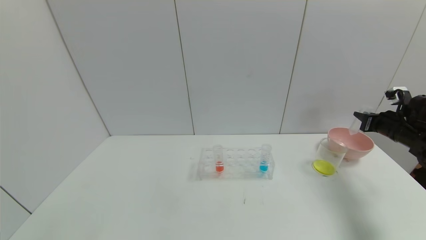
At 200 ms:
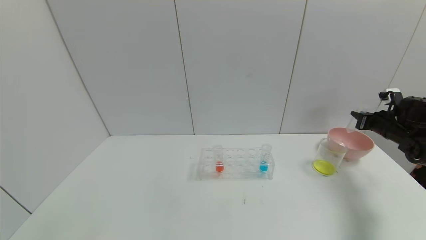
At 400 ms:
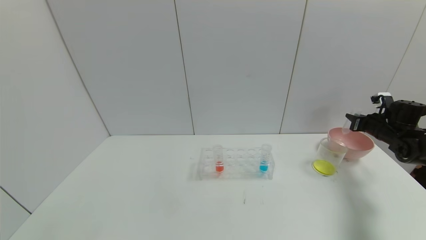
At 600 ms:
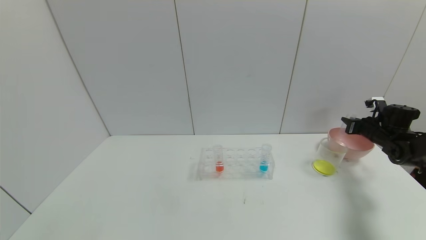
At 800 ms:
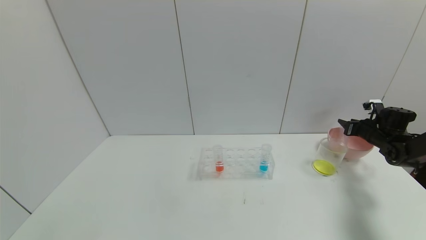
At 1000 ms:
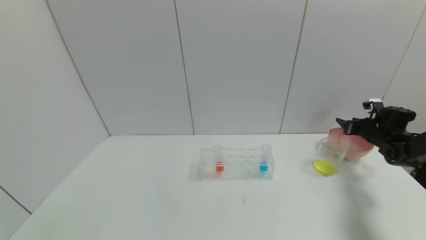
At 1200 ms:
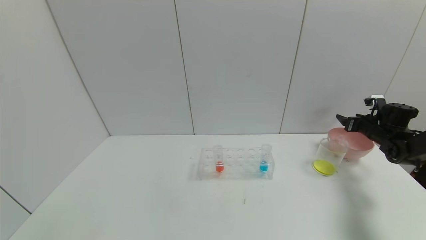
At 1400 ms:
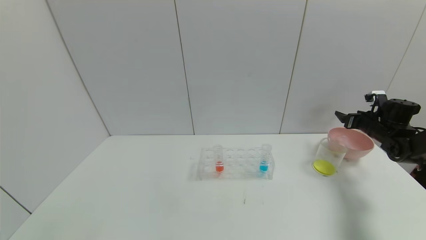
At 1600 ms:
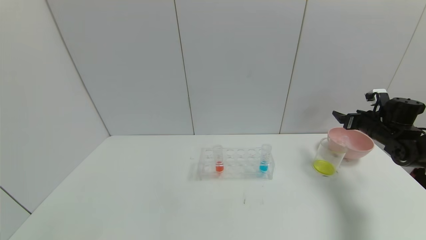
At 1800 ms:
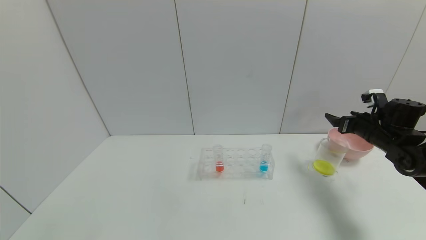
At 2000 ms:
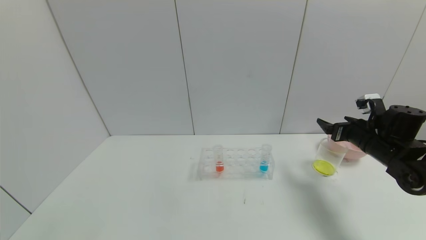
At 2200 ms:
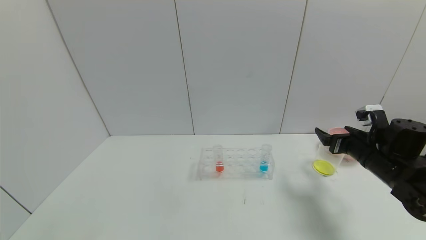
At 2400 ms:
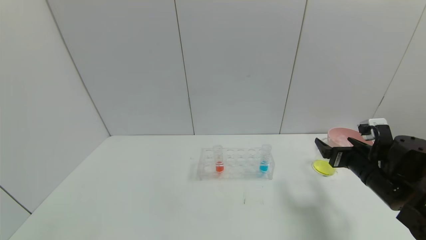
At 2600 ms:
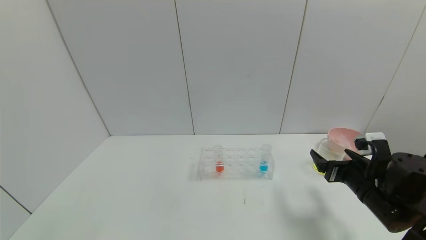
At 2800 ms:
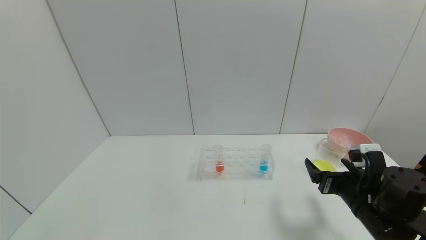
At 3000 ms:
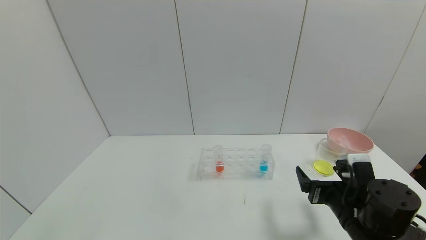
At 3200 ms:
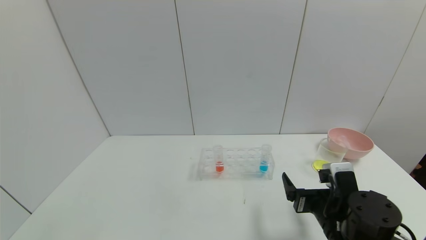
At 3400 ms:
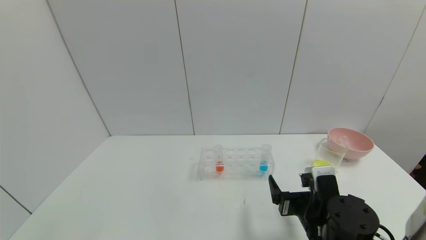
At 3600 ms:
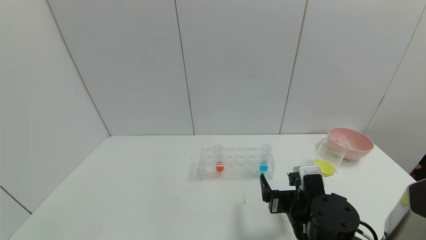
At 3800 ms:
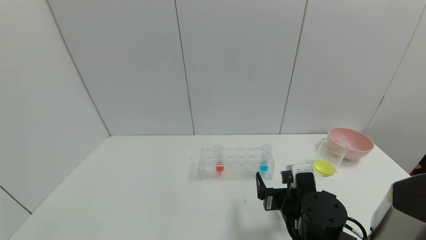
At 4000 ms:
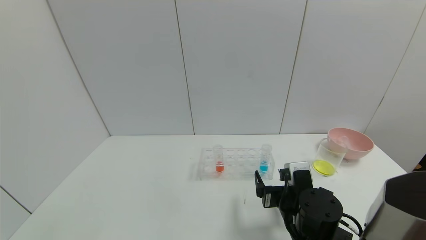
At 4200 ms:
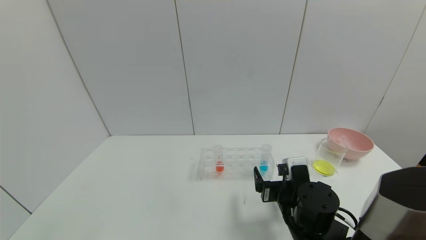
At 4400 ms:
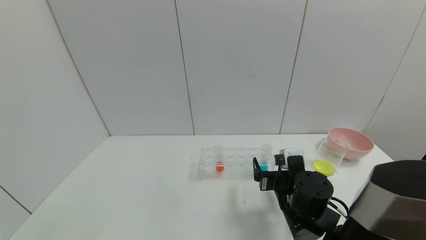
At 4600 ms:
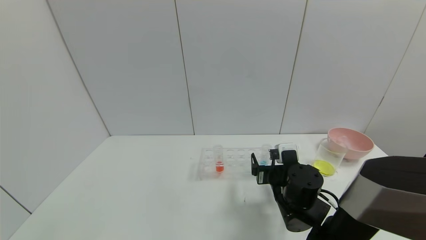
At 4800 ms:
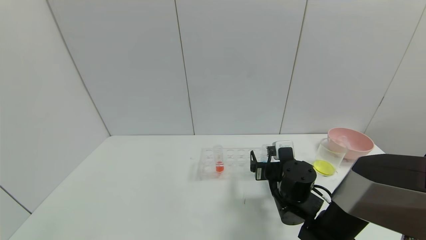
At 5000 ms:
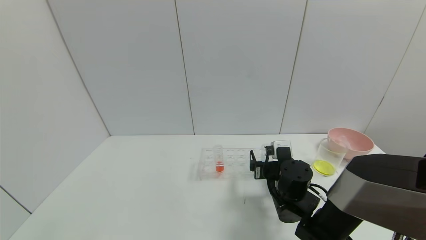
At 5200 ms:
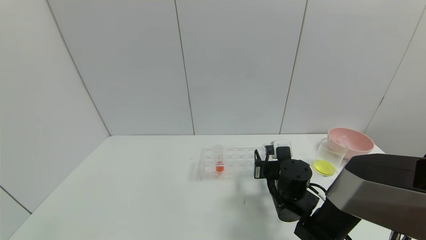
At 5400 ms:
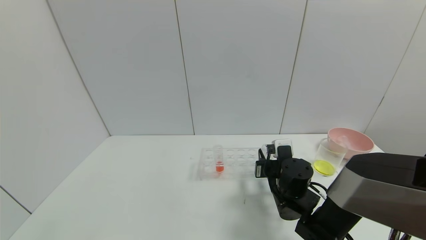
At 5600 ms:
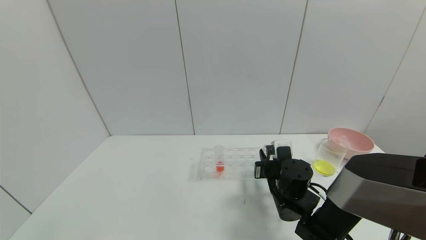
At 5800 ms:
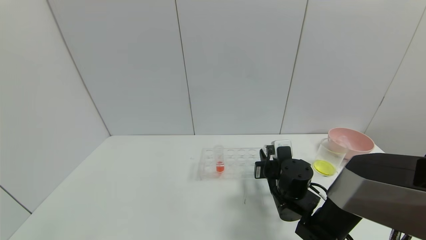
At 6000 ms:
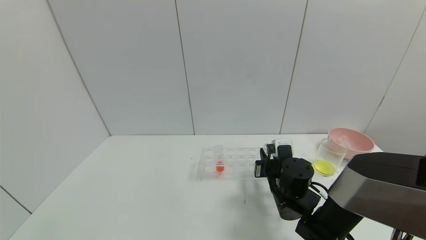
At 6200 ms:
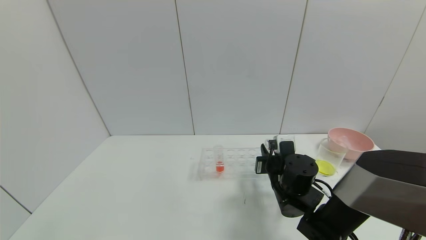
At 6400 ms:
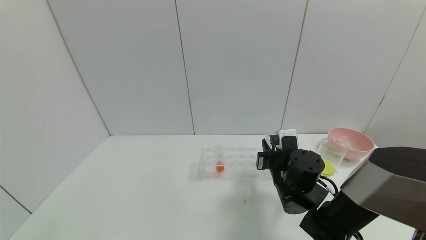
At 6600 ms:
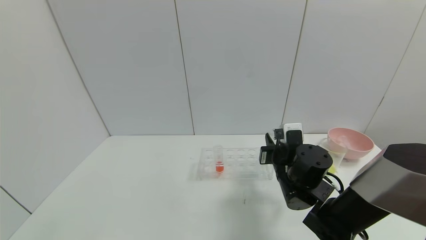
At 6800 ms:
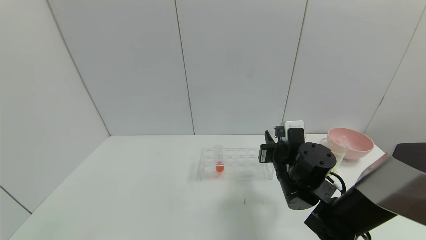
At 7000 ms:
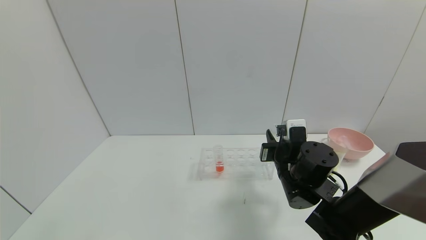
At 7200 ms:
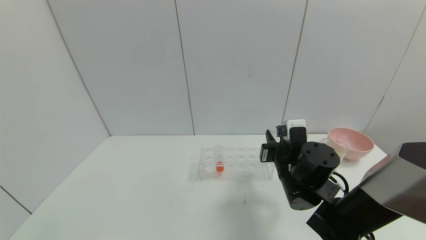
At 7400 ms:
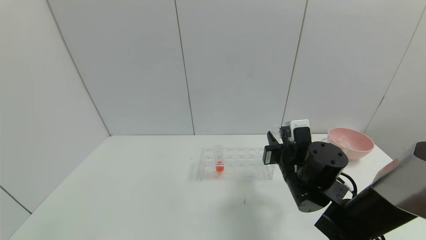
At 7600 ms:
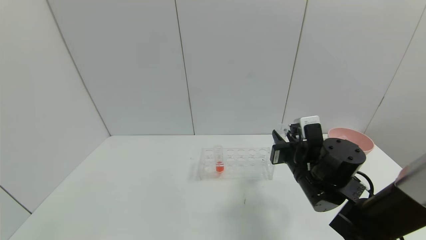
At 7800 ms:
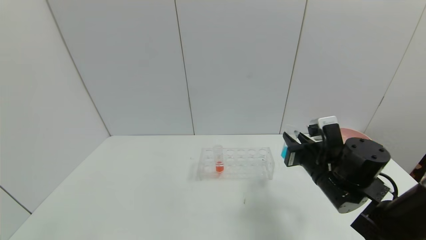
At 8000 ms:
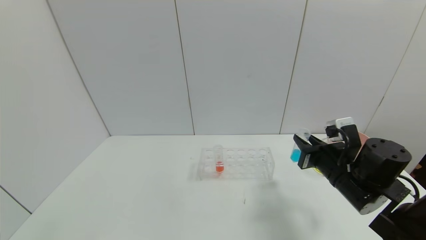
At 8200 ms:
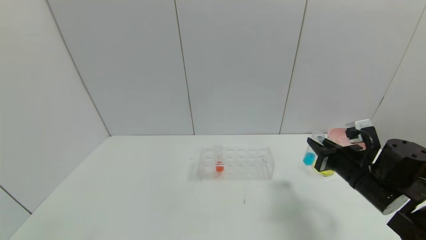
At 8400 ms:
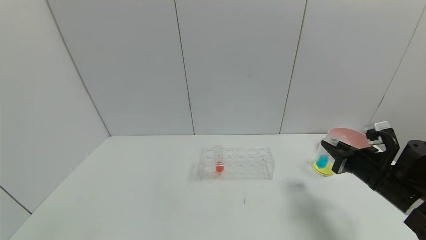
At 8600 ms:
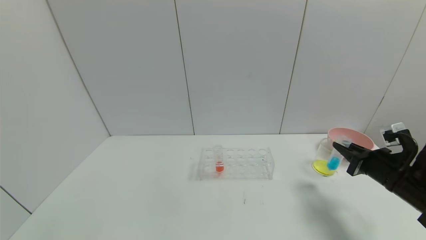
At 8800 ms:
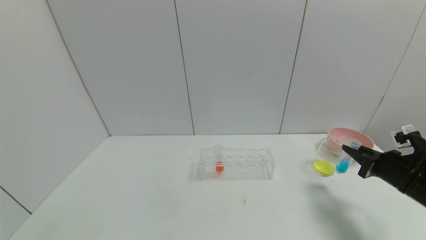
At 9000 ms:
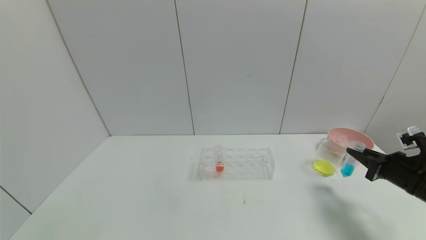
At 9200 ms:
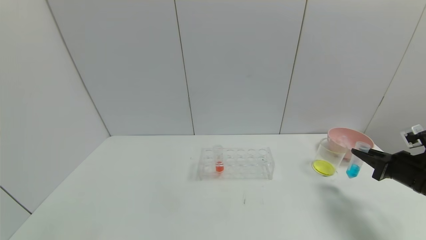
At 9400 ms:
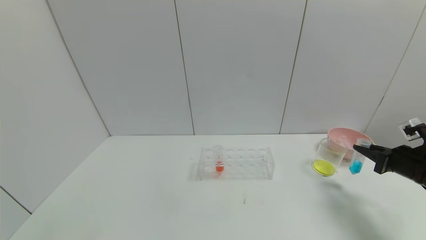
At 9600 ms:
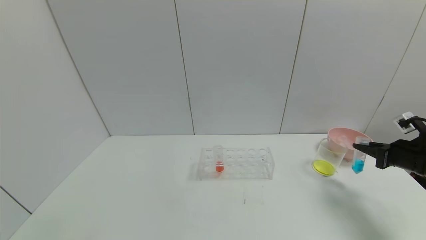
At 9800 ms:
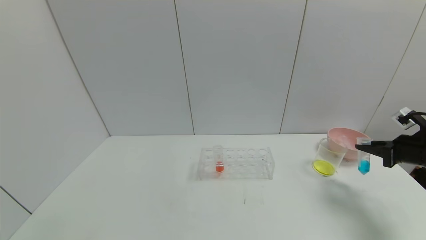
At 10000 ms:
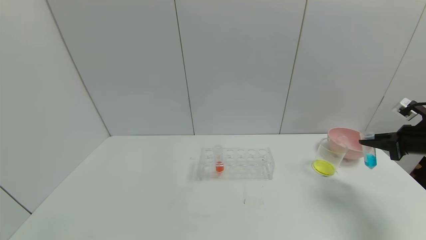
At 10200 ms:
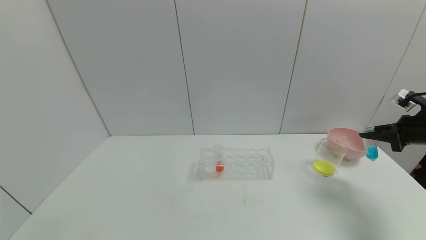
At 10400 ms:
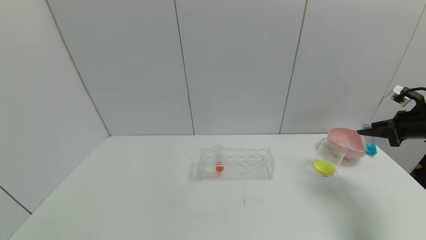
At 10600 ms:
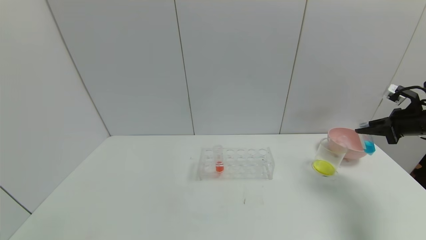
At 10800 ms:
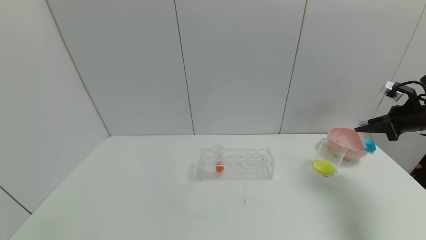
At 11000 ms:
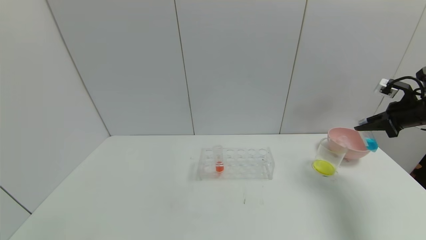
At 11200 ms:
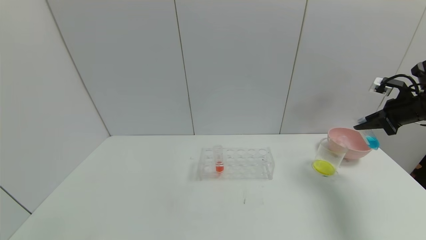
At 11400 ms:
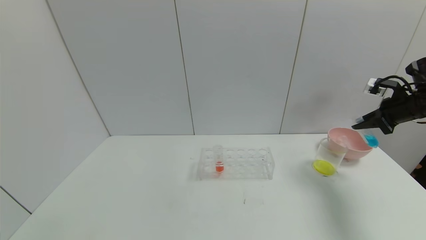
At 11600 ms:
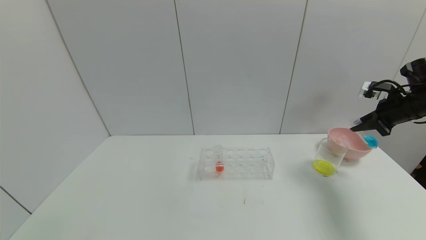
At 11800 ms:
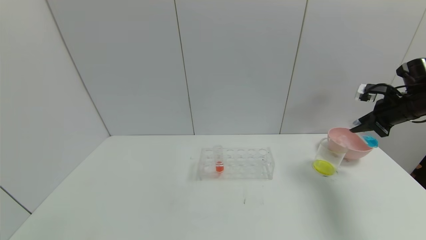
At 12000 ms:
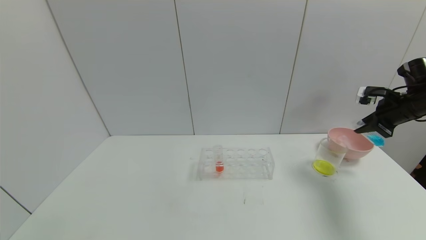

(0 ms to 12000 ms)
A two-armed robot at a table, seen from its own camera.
Task of the whole recording: pick up the test tube with yellow pigment and the test tube with blue pigment by grippers and pour them into the beaker.
Step, 1400 ms - 5600 ms: Grasp the blue reagent with the right gripper.
0 ms - 1600 ms: The right gripper opens up.
1600 ms - 3000 ms: The right gripper is displaced backward and to the left by roughly 30 cm.
3000 ms - 4400 ms: The right gripper is displaced to the left and forward by some 10 cm.
4400 ms - 6000 ms: The right gripper closes.
6000 ms - 7600 ms: The right gripper goes approximately 5 cm upward.
7600 ms - 9000 ms: The right gripper moves to the right, about 25 cm.
9000 ms - 10400 ms: The right gripper heads upward, forward and to the right, covering roughly 15 cm.
10400 ms - 12000 ms: The right gripper ends up roughly 5 cm from where it was.

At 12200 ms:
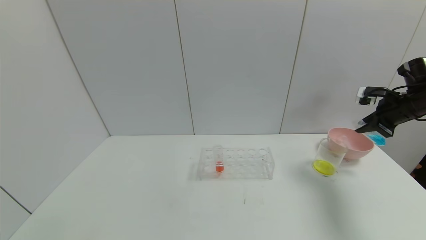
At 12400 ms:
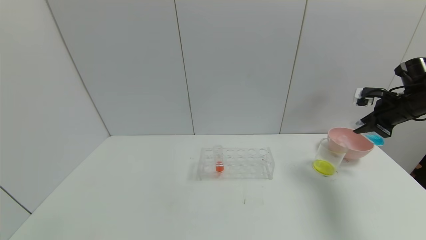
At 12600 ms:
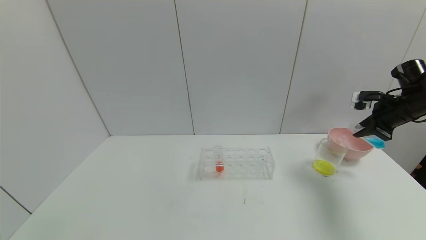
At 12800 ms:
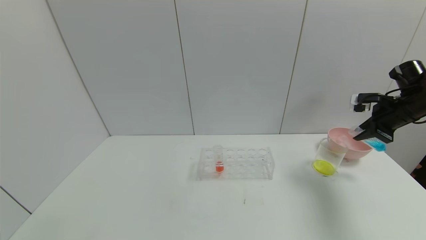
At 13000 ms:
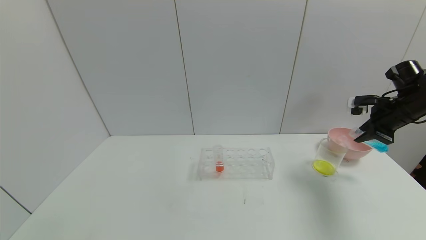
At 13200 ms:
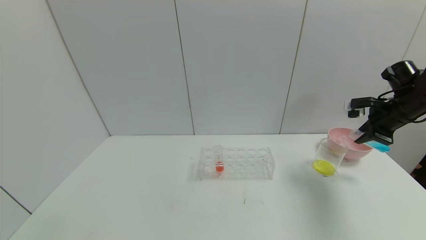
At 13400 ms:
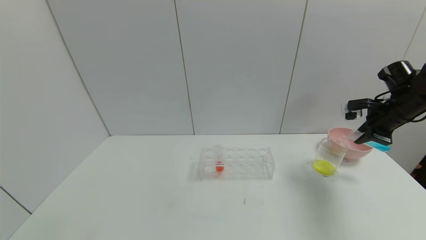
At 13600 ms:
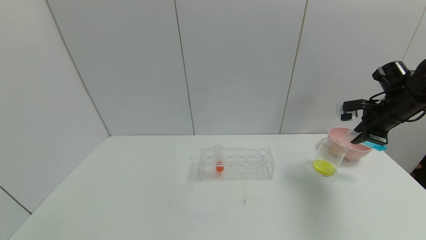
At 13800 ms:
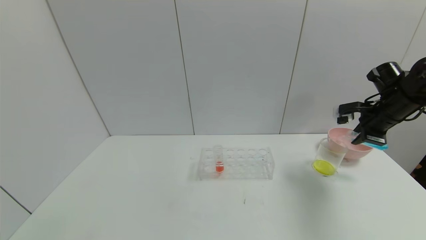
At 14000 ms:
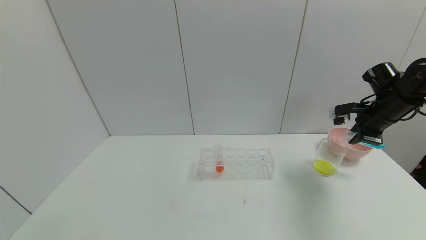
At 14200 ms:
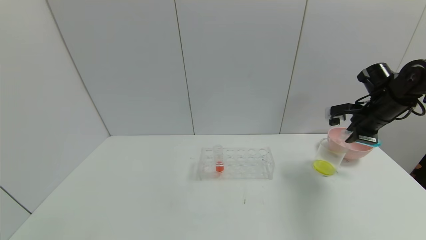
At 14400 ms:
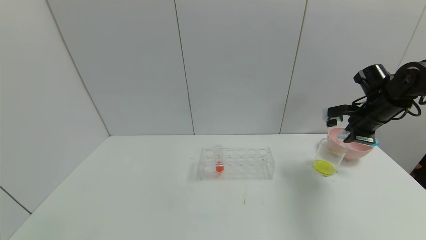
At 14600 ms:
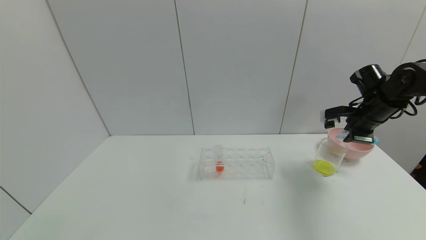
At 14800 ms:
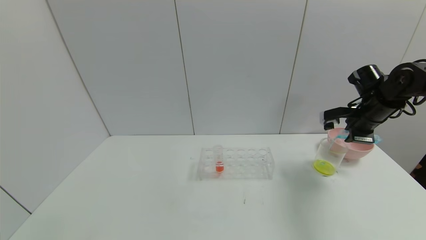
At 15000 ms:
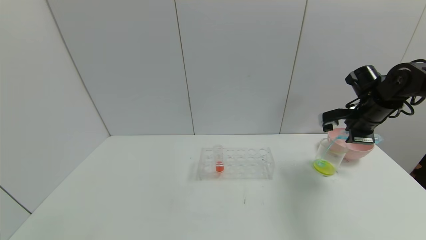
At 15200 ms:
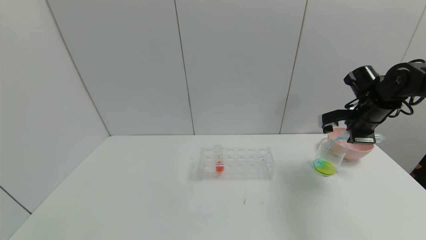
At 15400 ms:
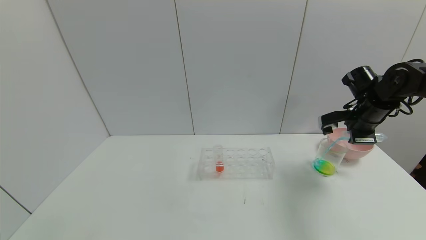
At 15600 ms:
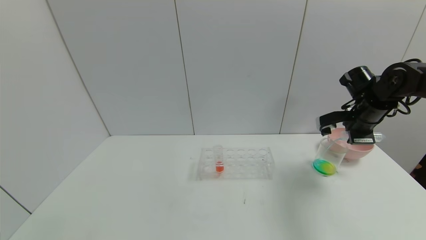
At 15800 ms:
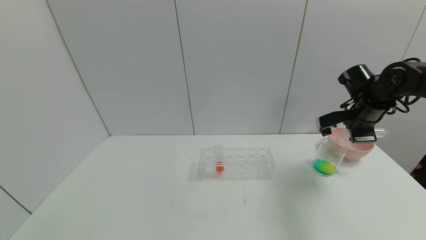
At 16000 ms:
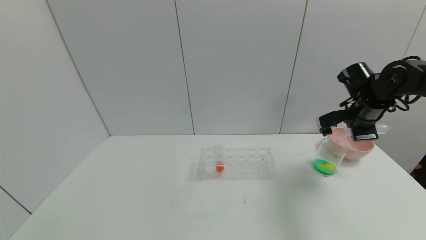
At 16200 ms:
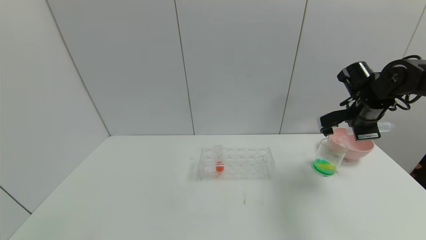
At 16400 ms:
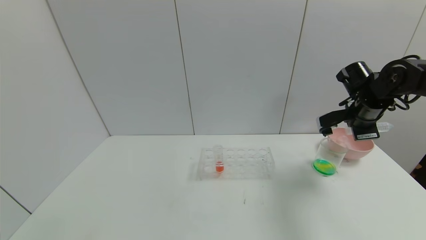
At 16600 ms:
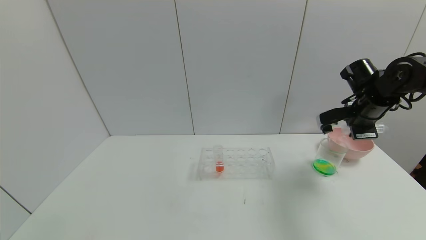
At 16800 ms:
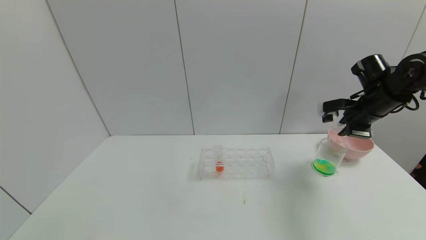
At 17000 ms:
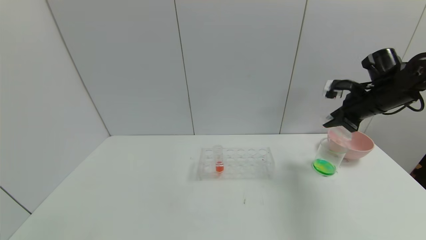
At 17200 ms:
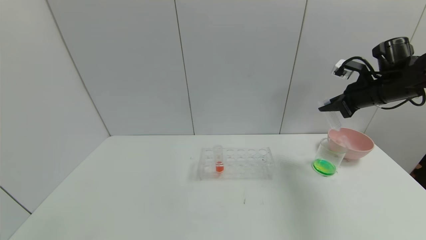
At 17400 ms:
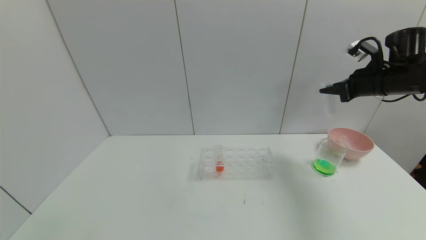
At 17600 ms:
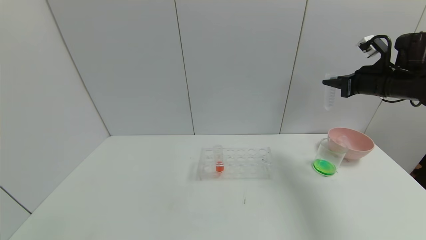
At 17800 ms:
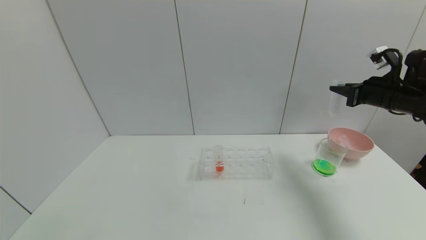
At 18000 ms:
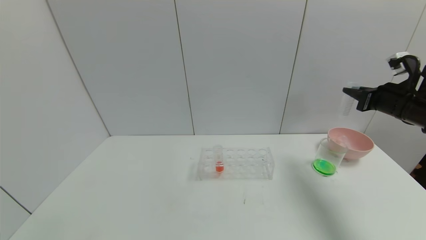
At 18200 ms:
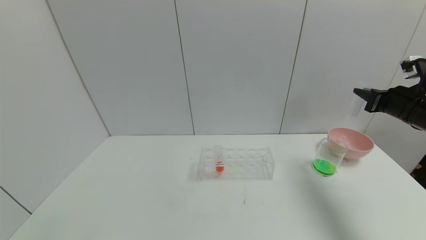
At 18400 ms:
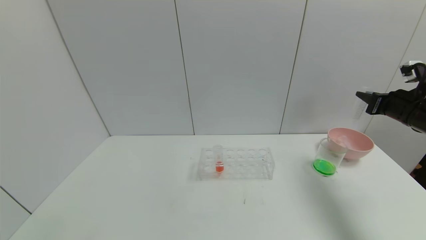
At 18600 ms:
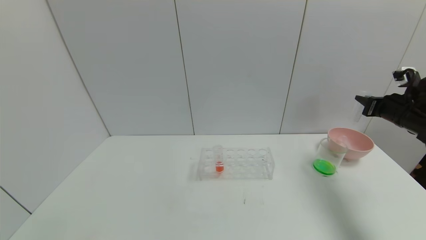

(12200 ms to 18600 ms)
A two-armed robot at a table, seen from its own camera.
Task of the whole recording: pick up the test tube with yellow pigment and the test tube with blue pigment by grippers and pour them into the beaker.
Step, 12200 ms - 16200 ms: Pour the blue reagent into the graduated cylinder with the right gripper.
12200 ms - 13800 ms: The right gripper travels to the left by roughly 5 cm.
13800 ms - 15400 ms: The grippers stay close to where they were, moving slightly.
17000 ms - 18600 ms: The right gripper shifts approximately 10 cm to the right.
